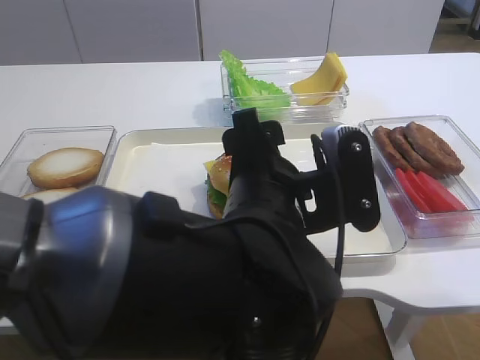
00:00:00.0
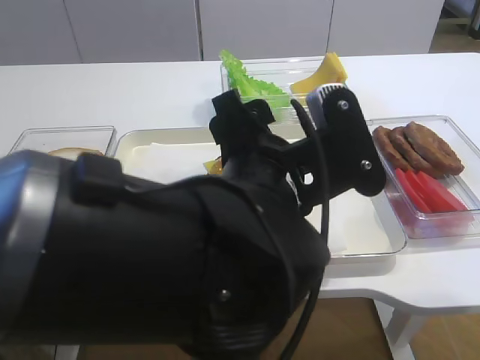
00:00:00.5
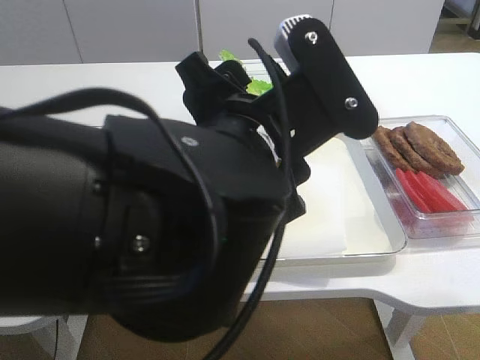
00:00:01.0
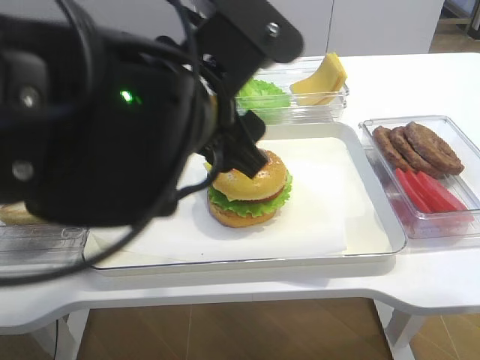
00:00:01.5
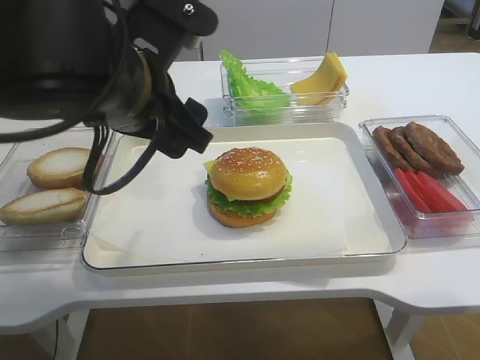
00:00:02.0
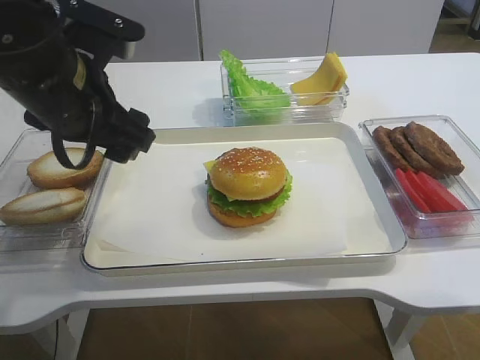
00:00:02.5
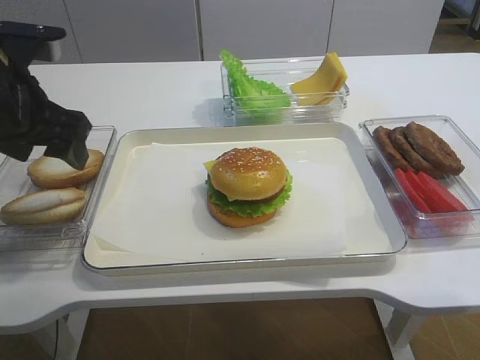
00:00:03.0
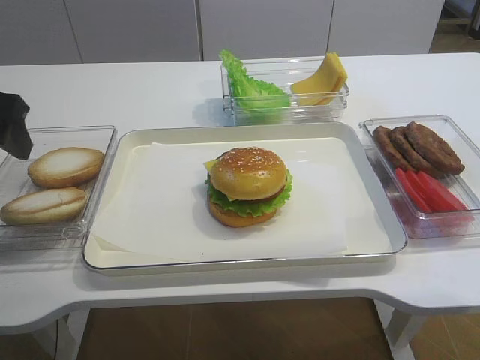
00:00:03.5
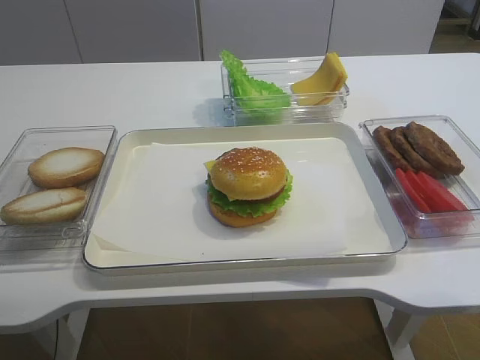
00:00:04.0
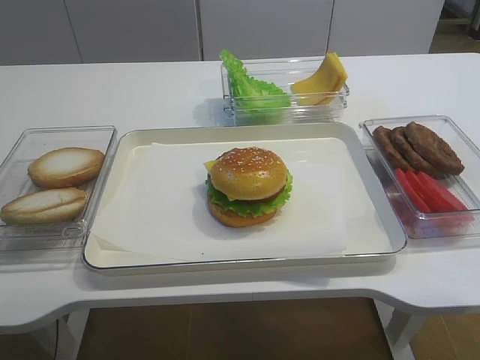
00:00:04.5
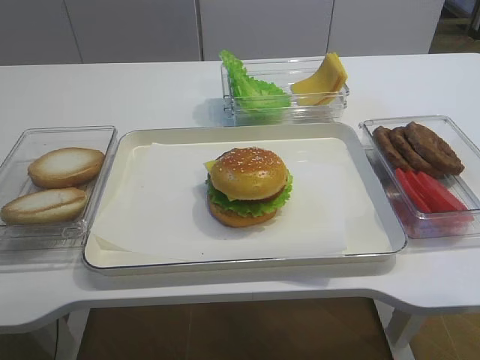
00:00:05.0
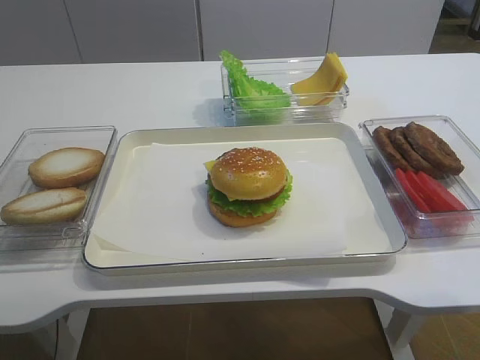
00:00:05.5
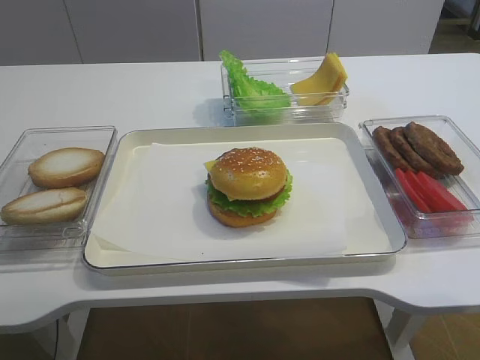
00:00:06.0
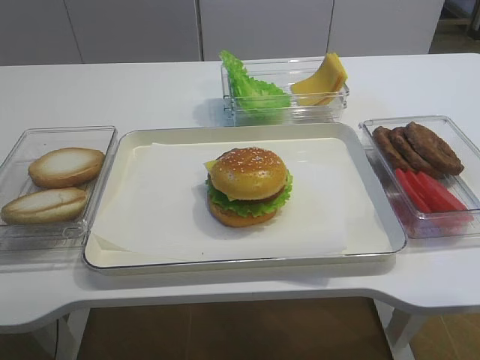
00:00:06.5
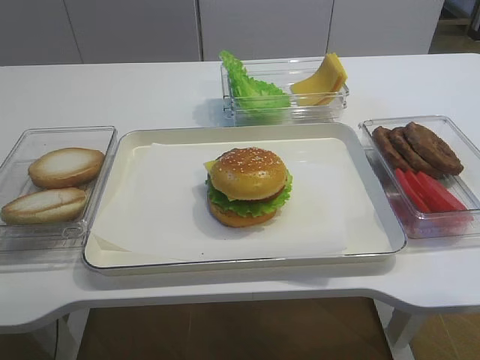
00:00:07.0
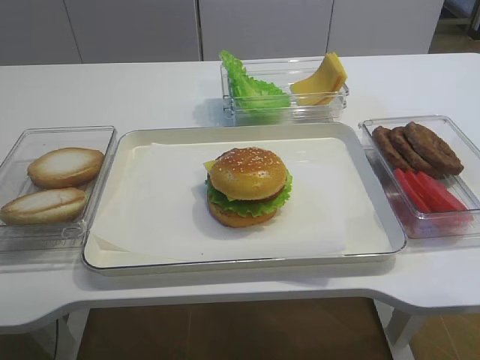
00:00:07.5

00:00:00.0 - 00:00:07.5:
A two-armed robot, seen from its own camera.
00:00:00.0 - 00:00:02.0: The left gripper is displaced to the left and upward by roughly 15 cm.
00:00:02.0 - 00:00:04.0: The left gripper travels to the left by some 20 cm.
